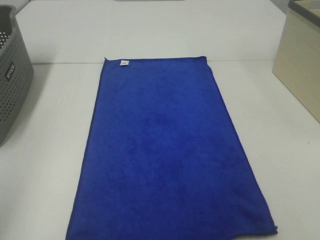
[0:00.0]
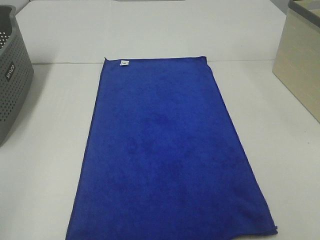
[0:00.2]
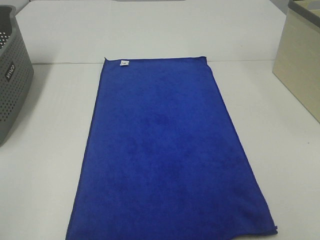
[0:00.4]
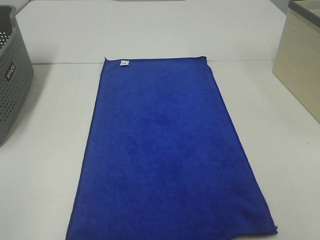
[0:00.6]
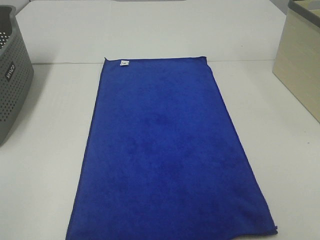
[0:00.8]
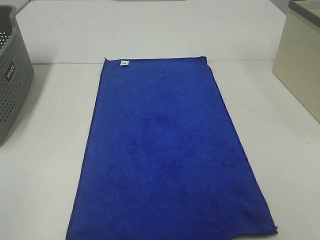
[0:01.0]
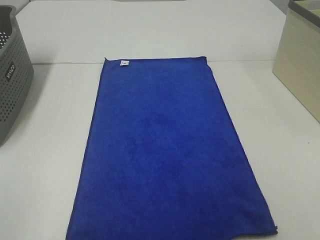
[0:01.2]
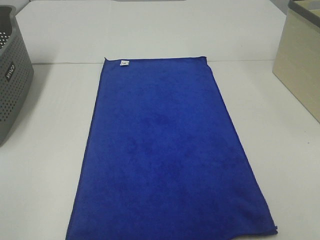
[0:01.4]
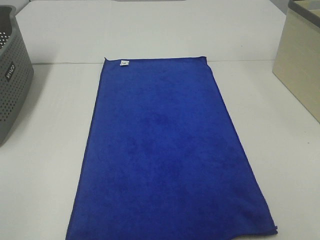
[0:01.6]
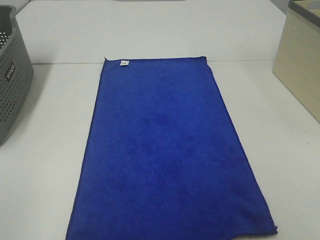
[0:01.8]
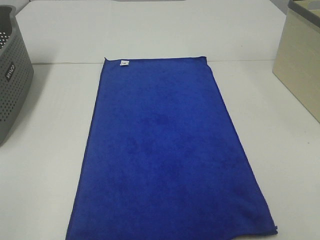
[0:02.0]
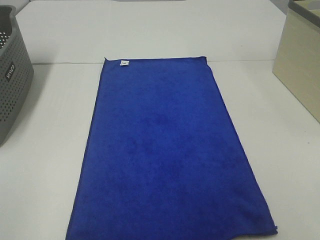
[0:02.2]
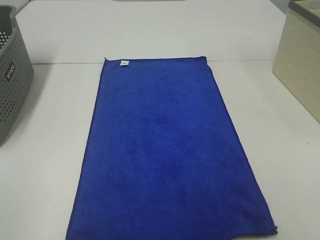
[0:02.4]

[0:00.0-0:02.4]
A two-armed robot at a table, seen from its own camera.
Task of the whole recording: Remove the towel and place it.
0:01.2 to 0:02.4: Both grippers stay put.

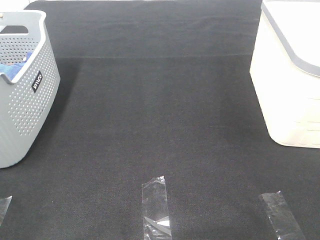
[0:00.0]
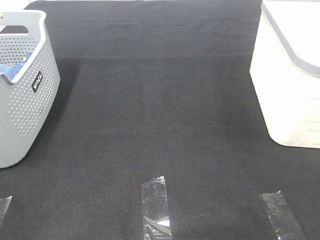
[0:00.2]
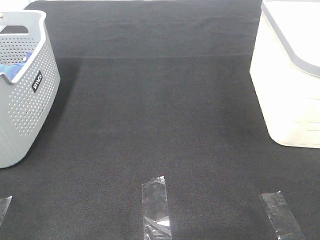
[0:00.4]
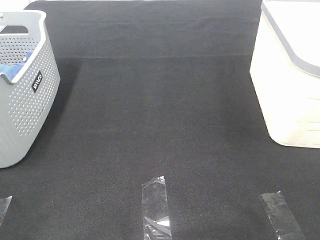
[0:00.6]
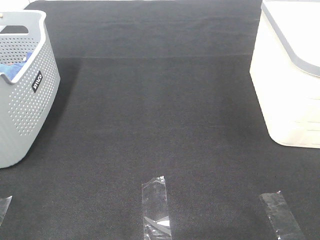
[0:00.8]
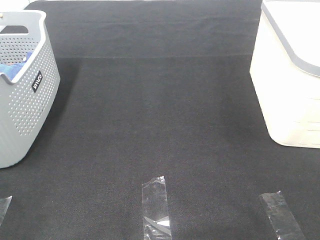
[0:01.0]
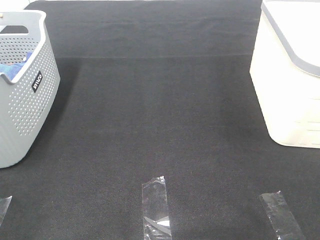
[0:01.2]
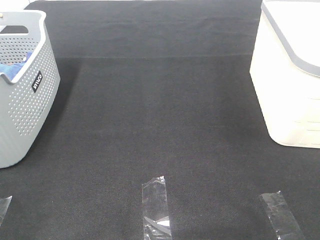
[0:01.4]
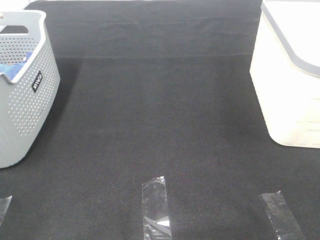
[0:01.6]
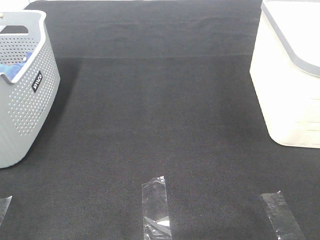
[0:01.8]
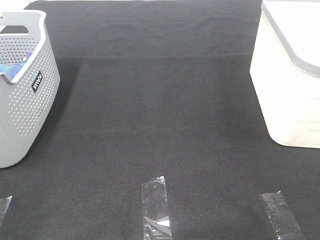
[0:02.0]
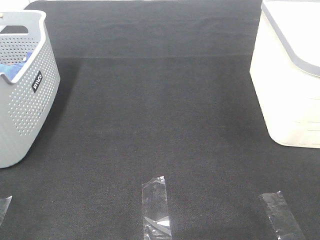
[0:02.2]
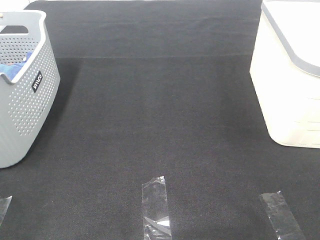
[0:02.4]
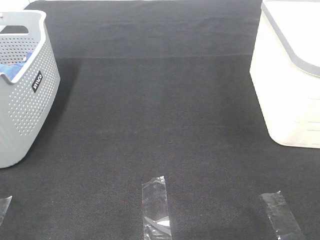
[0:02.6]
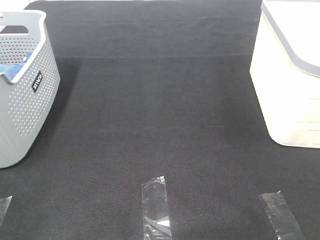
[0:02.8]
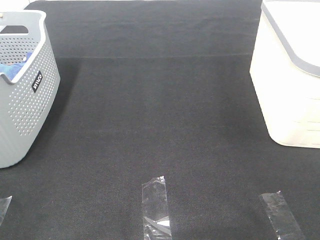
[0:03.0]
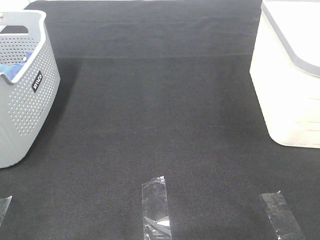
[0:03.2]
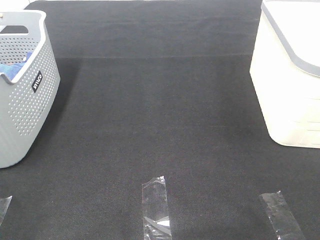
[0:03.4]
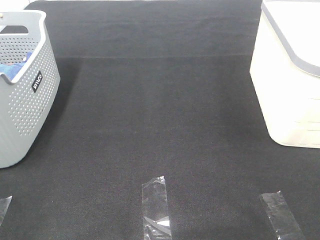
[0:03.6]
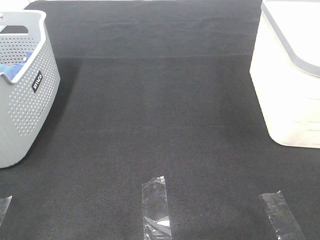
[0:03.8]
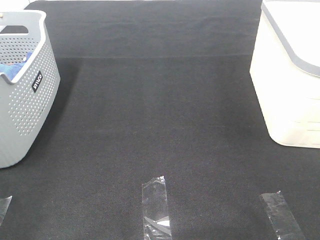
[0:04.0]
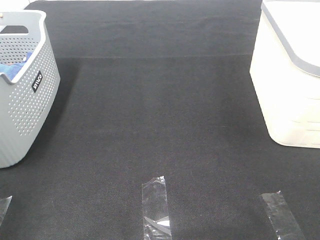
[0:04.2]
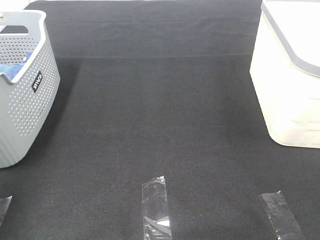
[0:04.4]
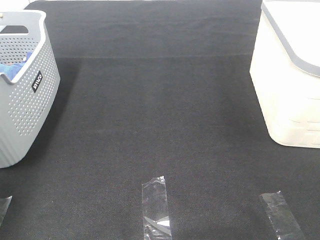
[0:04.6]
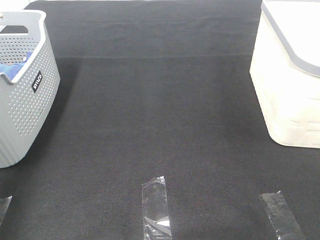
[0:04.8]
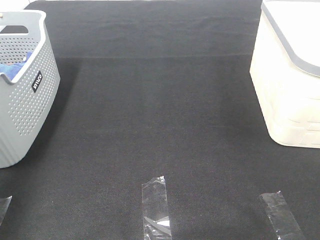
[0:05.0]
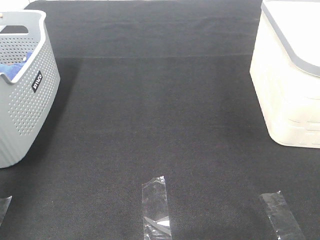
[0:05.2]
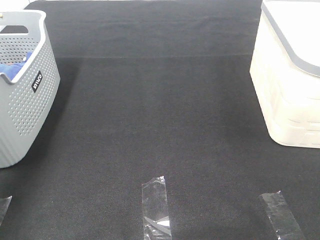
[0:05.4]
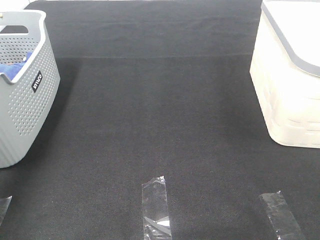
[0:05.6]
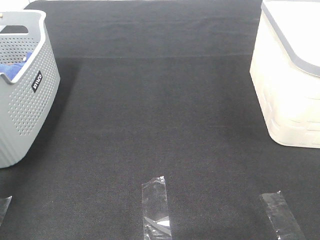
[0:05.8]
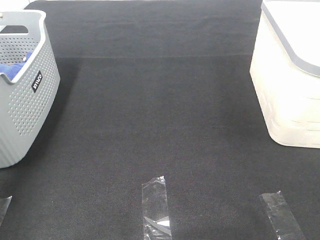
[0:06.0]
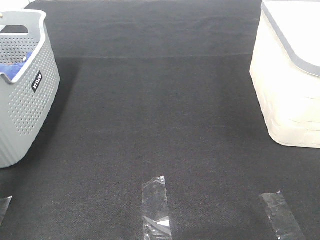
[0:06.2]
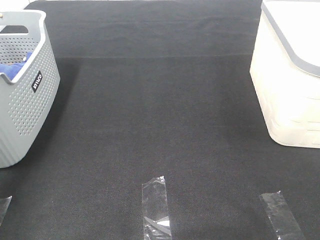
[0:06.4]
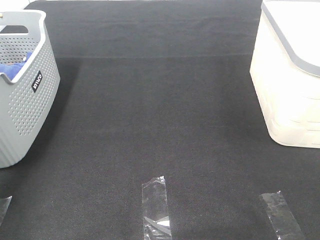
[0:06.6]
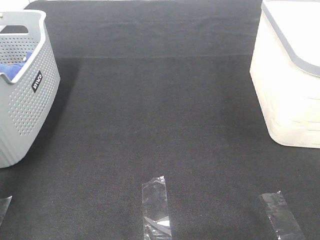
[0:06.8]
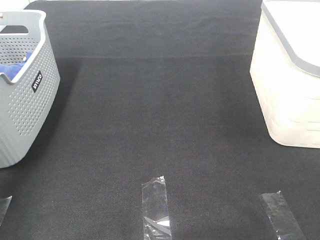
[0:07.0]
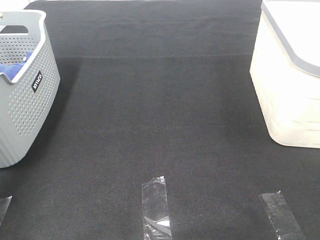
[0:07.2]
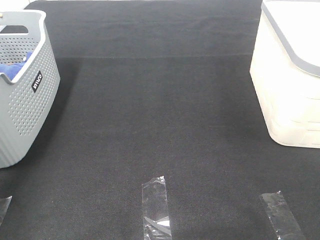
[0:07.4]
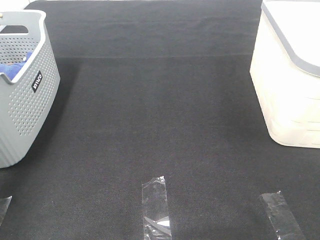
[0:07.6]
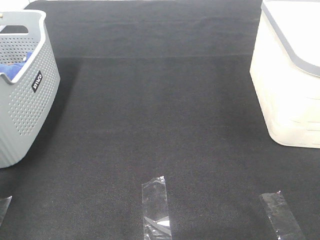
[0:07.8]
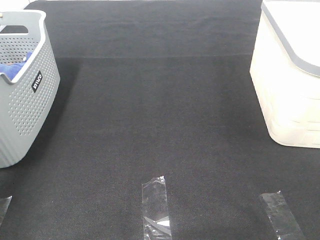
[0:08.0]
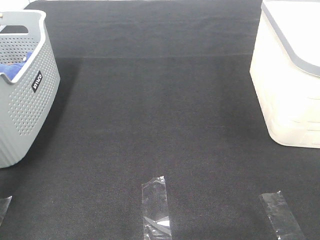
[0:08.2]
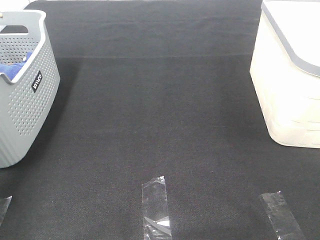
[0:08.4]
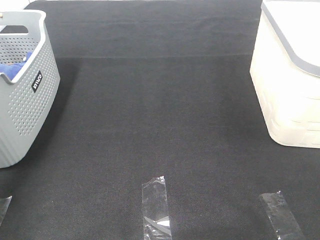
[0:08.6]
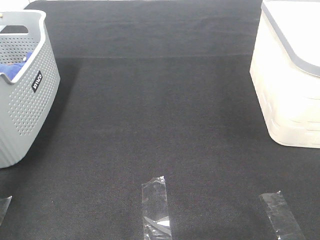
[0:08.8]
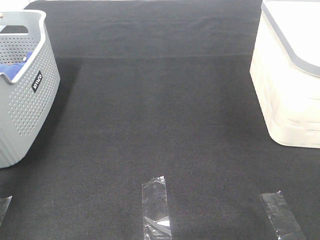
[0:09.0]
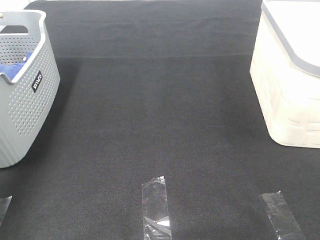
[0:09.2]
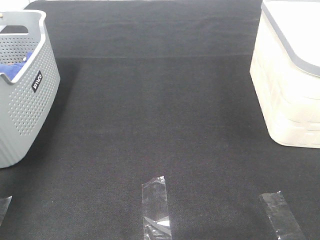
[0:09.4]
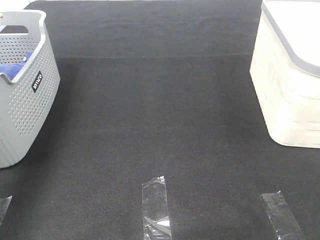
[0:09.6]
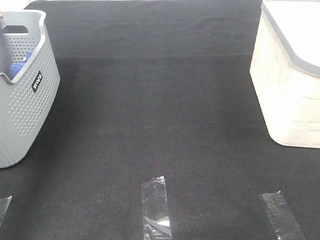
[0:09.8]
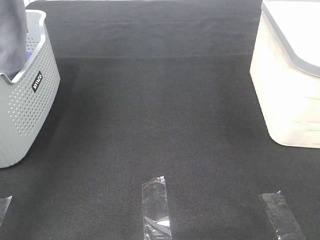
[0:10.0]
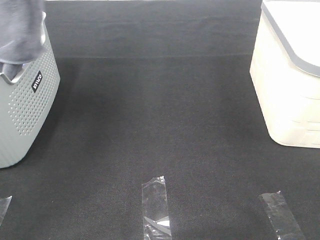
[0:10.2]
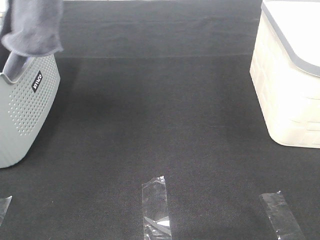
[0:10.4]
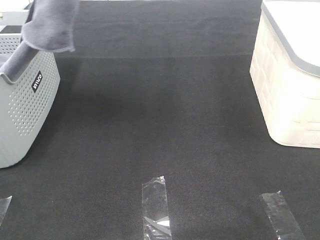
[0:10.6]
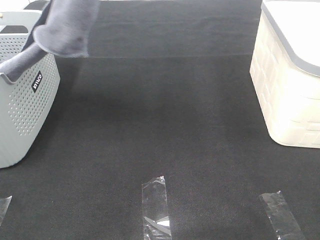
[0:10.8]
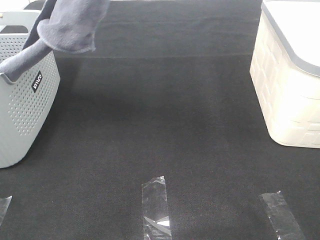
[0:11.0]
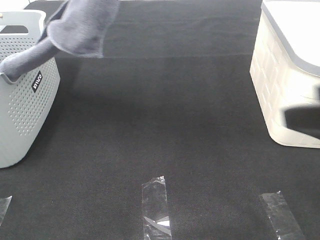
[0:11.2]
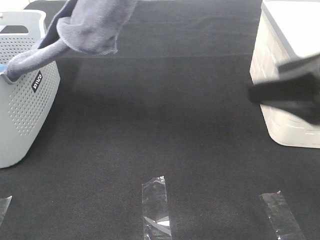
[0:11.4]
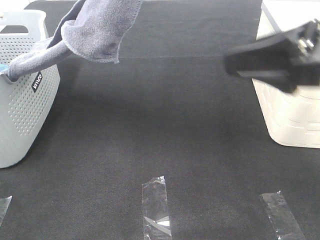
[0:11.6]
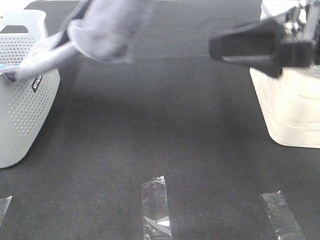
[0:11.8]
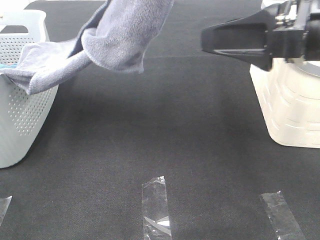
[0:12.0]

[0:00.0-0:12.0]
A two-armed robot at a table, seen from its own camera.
Task of the whole recording: Remove the towel and place it.
0:00.0 to 0:03.0: Neither gripper changes place.
0:09.0 to 0:10.4: The left gripper is displaced to the right and upward by some 25 cm.
0:10.4 to 0:12.0: The left gripper goes about 15 cm to the right and backward. Meanwhile the right gripper shifts roughly 20 cm forward and to the left.

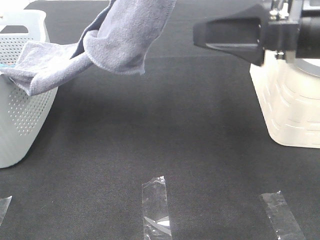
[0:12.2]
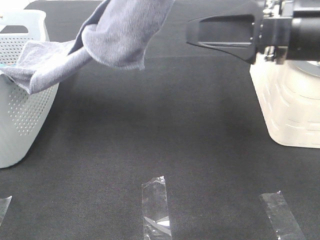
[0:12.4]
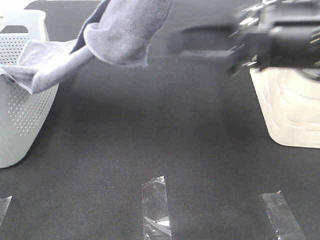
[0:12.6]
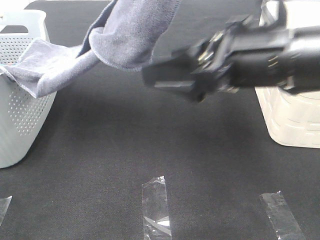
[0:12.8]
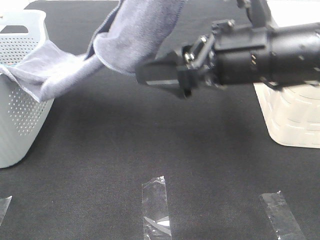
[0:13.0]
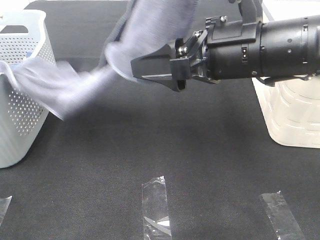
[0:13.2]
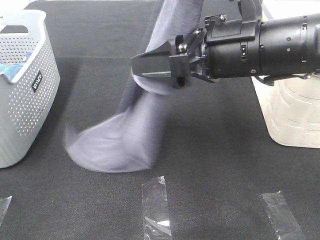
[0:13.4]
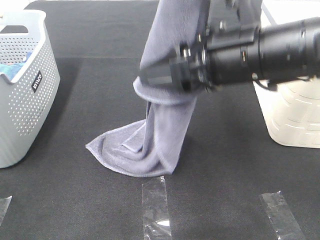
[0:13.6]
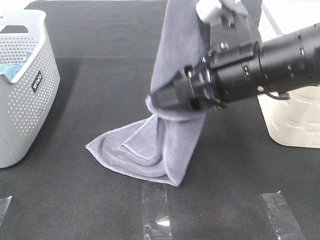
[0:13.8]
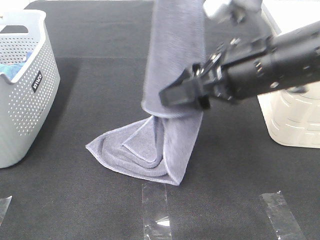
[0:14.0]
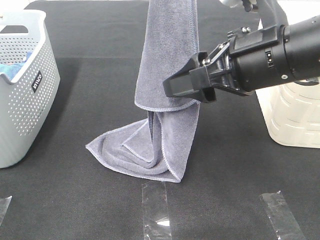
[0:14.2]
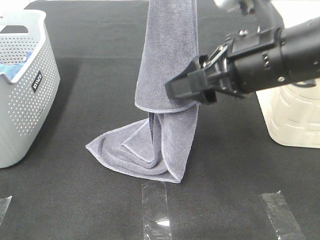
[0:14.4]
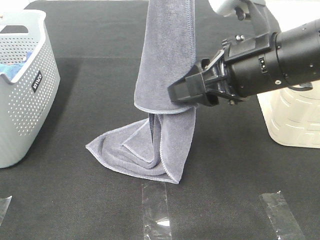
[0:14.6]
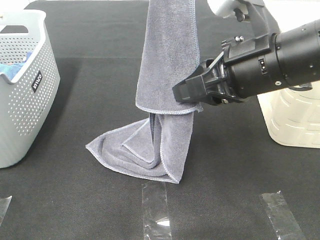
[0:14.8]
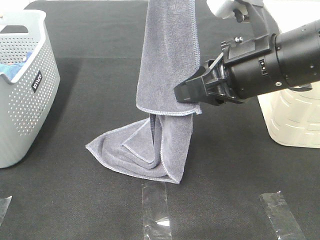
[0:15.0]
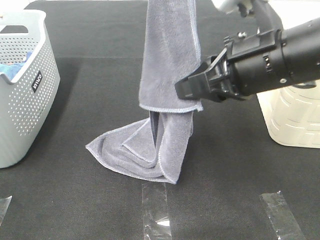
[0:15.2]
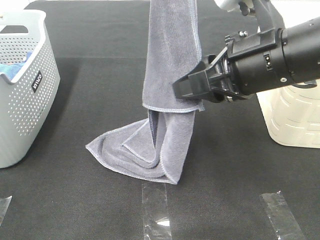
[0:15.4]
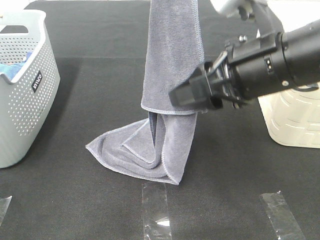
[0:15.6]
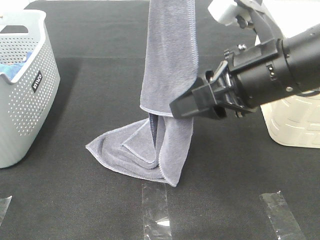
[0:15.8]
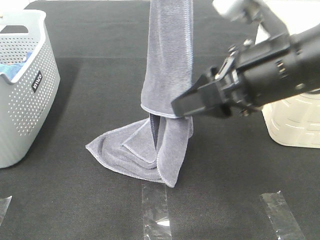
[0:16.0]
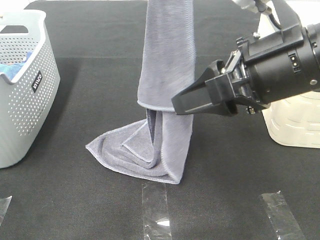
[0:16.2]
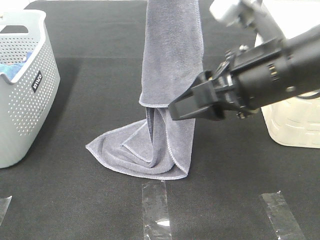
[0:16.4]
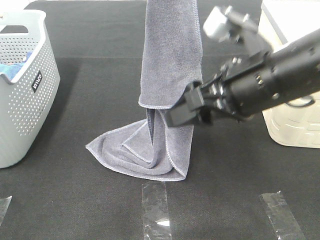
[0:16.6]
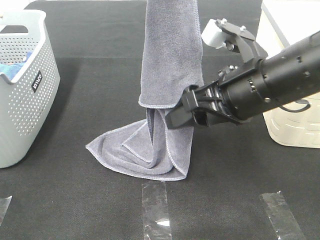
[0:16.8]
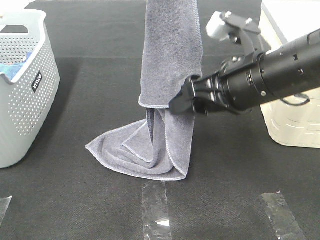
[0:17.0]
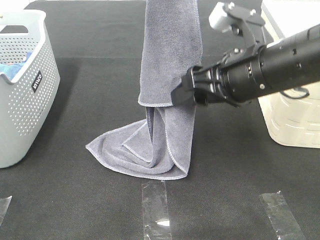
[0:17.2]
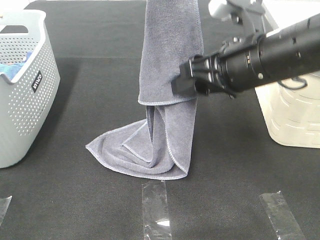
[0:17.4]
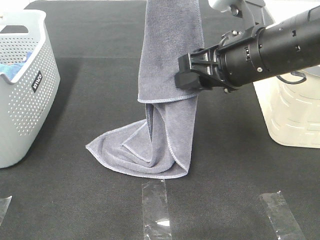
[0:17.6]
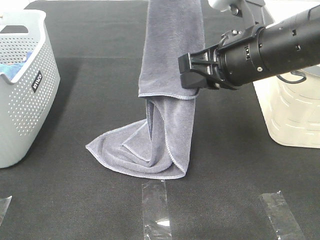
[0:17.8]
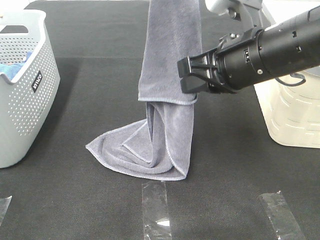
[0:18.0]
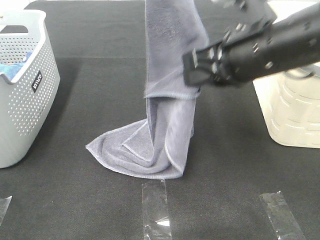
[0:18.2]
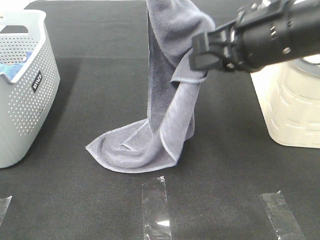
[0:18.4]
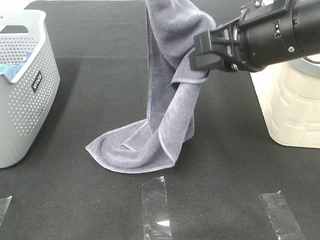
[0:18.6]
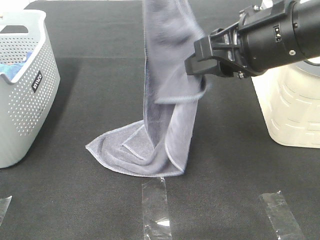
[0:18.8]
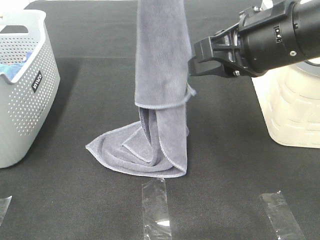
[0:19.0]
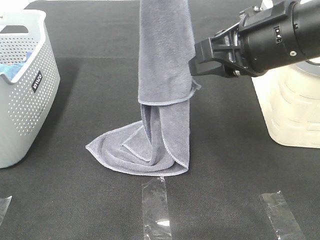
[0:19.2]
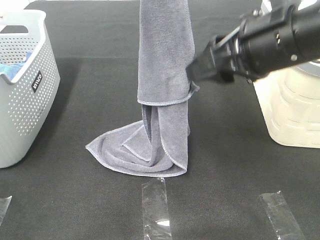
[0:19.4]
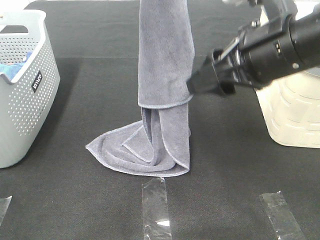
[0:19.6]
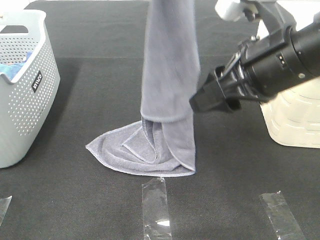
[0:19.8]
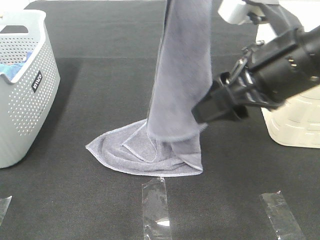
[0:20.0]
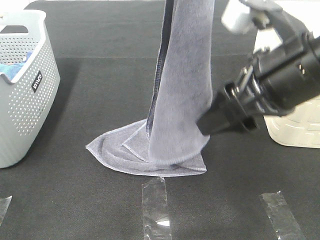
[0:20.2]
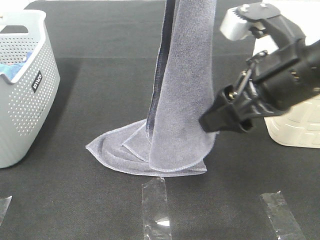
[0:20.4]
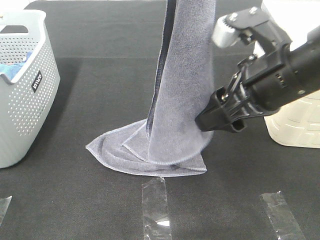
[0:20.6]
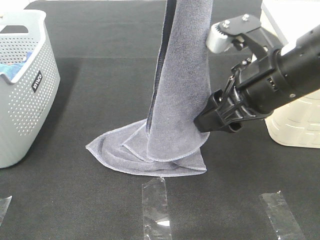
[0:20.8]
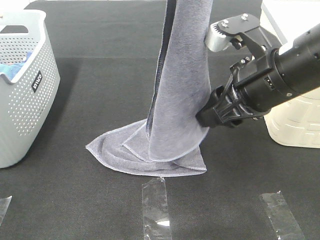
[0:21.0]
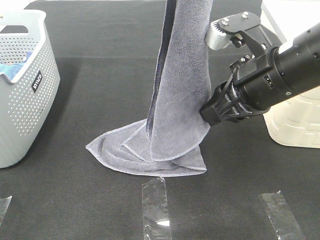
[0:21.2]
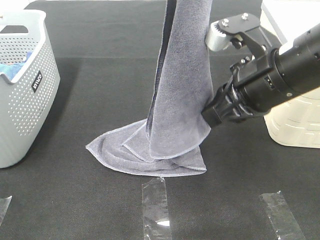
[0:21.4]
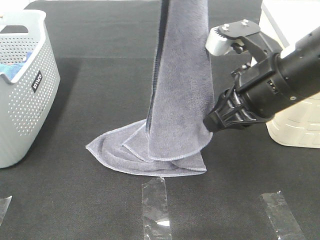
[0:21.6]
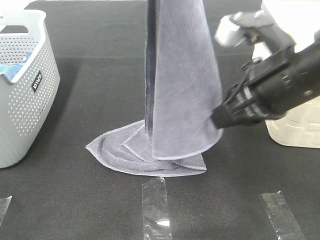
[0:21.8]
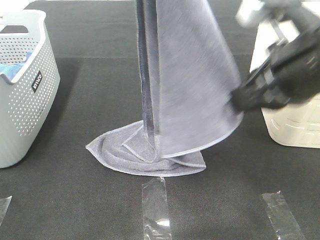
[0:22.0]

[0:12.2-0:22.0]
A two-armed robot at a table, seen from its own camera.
Task of the whole recording: Remove the towel and place it.
Step, 0:12.2 to 0:19.4: Right hand: grab a corner of the grey towel and straighten it.
0:12.2 to 0:13.6: The right gripper is displaced to the left by approximately 5 cm.
0:13.6 to 0:15.0: The left gripper ends up approximately 5 cm from where it was, while the right gripper closes.
0:15.0 to 0:16.4: The right gripper opens.
0:16.4 to 0:17.8: The right gripper closes up.
0:17.8 to 0:19.2: The grippers move only a little.
0:19.2 to 0:20.6: The right gripper opens its fingers.
0:20.6 to 0:22.0: The left gripper moves about 5 cm; the right gripper changes place by some 5 cm, and closes.
